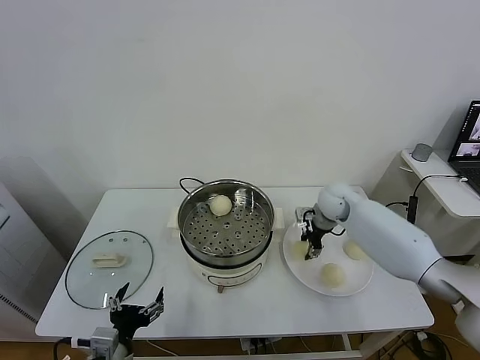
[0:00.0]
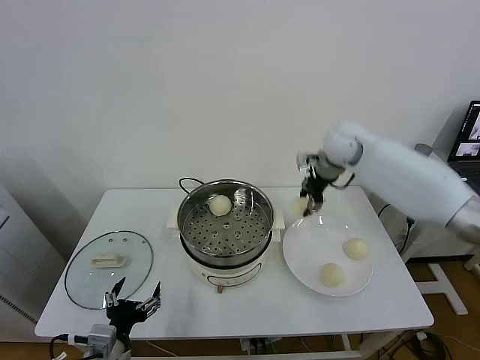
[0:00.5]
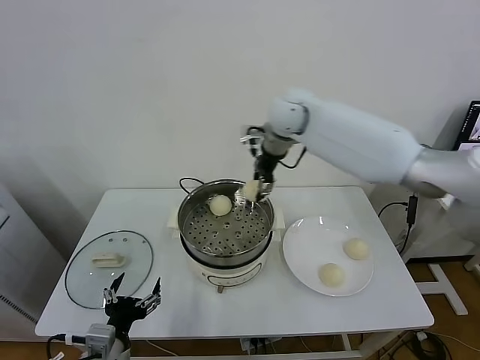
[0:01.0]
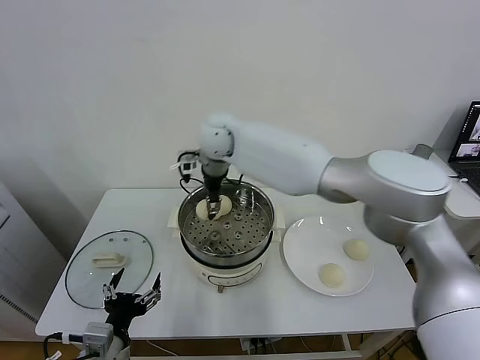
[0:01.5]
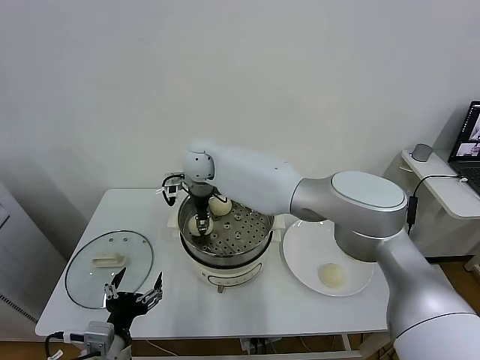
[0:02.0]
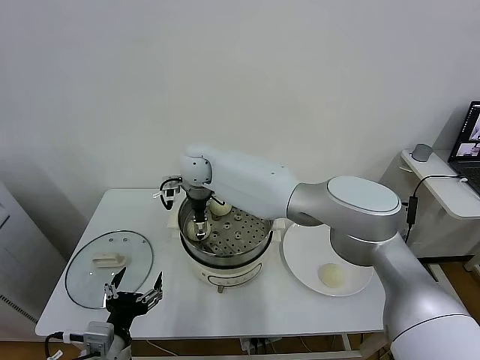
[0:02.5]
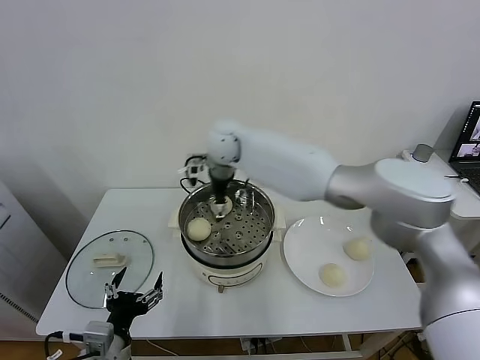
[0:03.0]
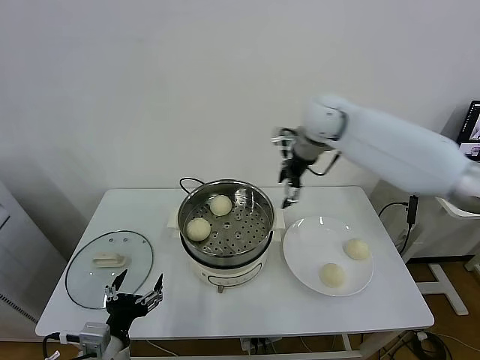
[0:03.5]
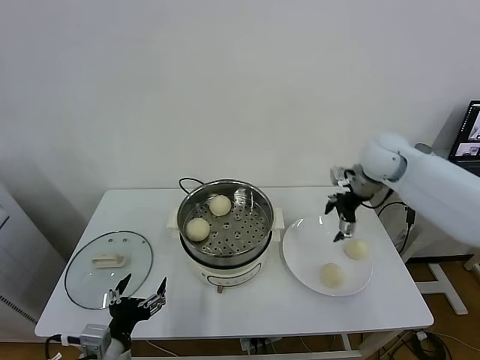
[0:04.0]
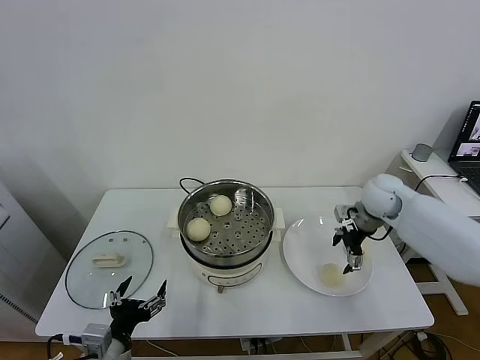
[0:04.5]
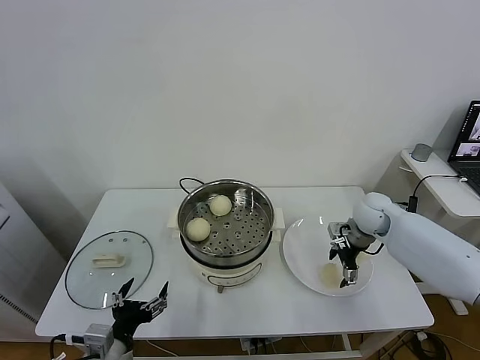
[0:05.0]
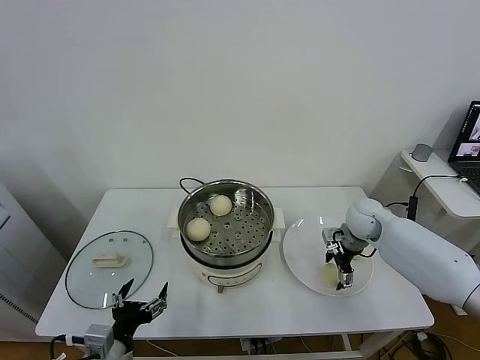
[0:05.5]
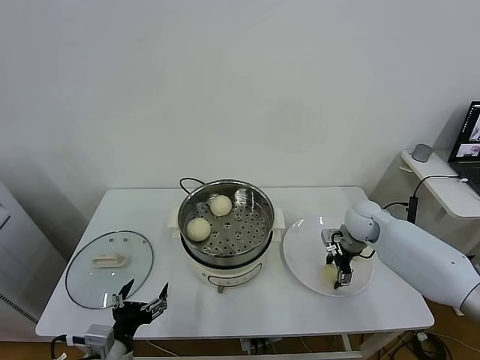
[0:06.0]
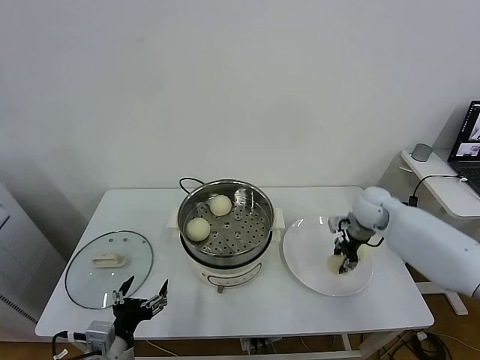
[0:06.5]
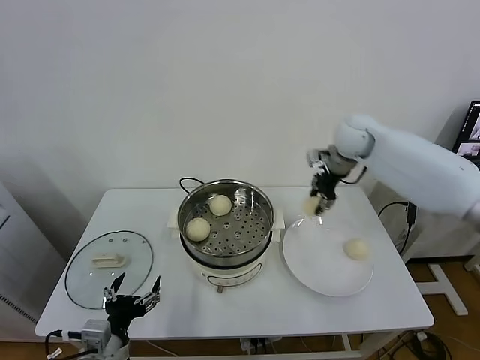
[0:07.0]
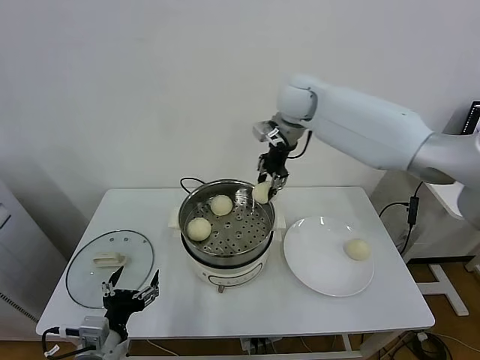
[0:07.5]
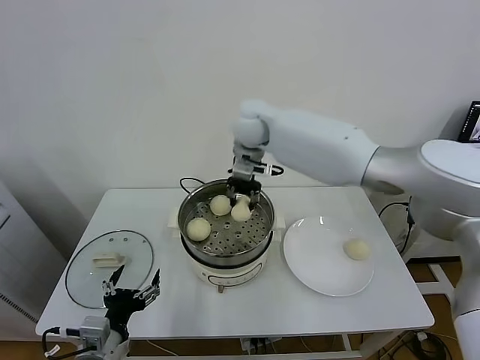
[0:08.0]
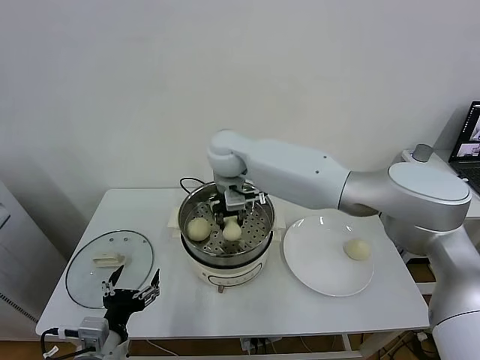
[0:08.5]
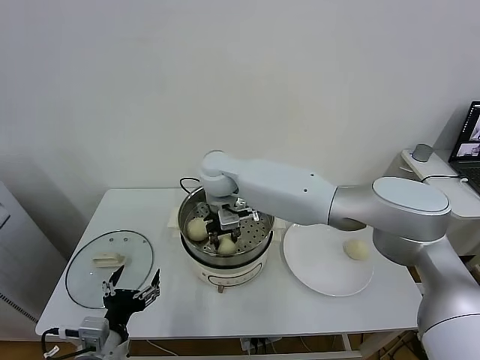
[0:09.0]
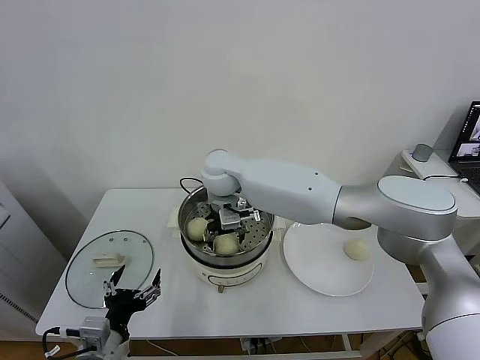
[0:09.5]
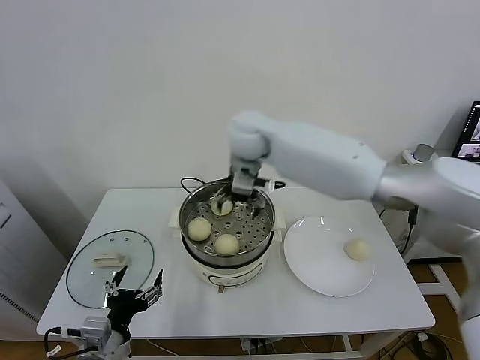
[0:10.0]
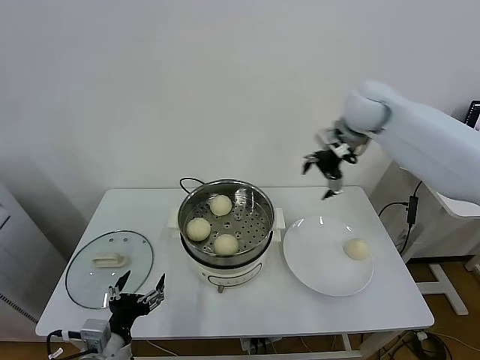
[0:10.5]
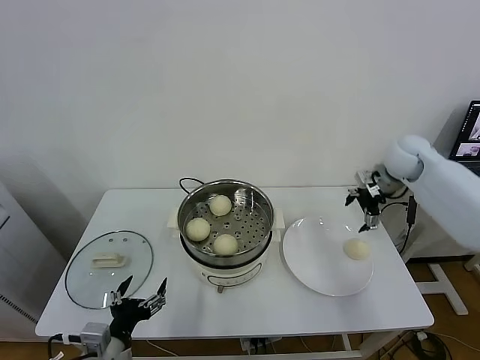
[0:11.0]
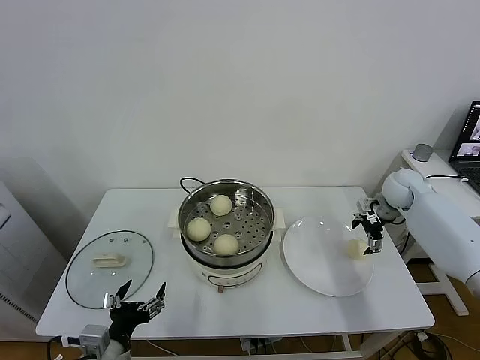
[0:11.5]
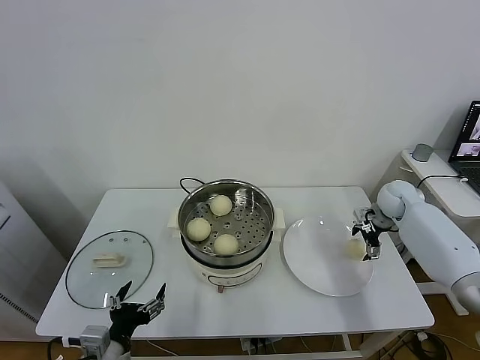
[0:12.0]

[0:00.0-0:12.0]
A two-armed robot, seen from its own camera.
Task of the whole recording: take steamed baozi put them in steamer.
Step, 0.0 to 2.5 s: Place the baozi on the steamer with right gripper.
Step, 3.0 to 6.0 s: Grasp the baozi in the plate with right gripper.
Step, 6.5 to 9.5 s: Place the baozi on the steamer with right gripper.
0.0 to 2.0 s: The right gripper is displaced to the left by approximately 35 cm.
2.0 to 4.0 s: The right gripper shifts roughly 40 cm to the right, and opens its fingers.
4.0 to 6.0 s: The right gripper goes roughly 15 cm downward, and closes its fingers.
6.0 to 8.0 s: The right gripper heads to the left and upward, covering about 40 cm, and closes up.
8.0 to 10.0 s: The right gripper travels downward and back again, roughly 10 cm each way, and opens its fingers.
10.0 to 12.0 s: The right gripper goes some 40 cm to the right and downward.

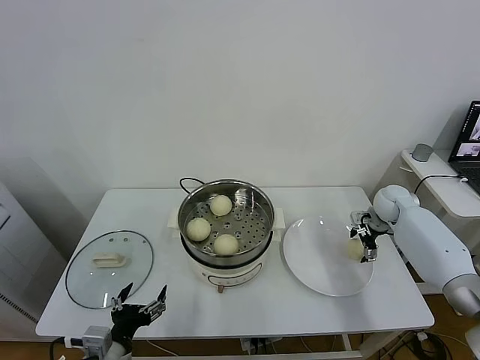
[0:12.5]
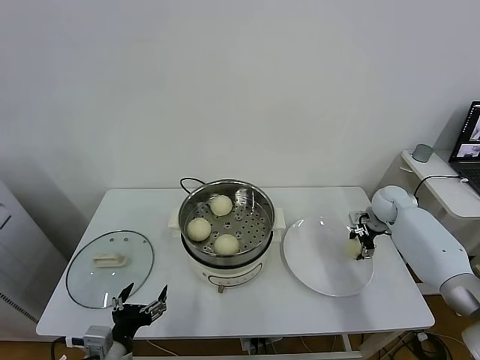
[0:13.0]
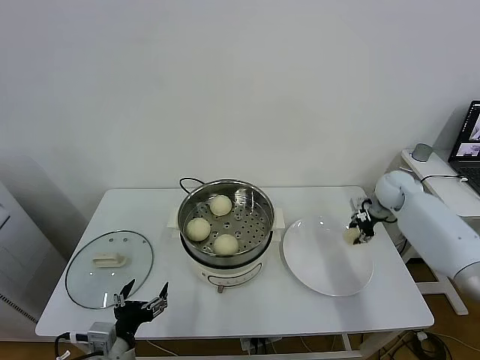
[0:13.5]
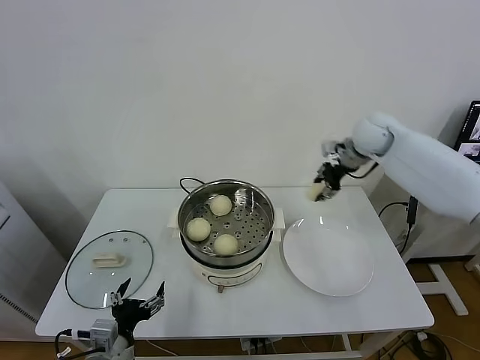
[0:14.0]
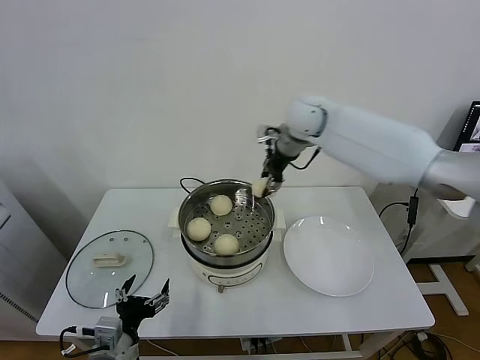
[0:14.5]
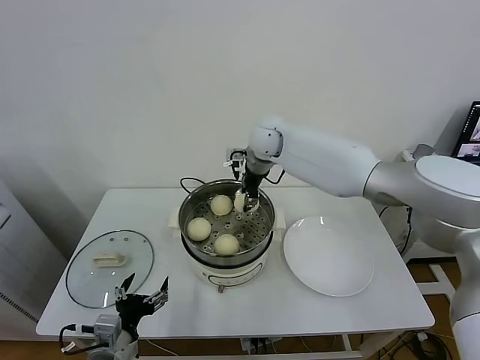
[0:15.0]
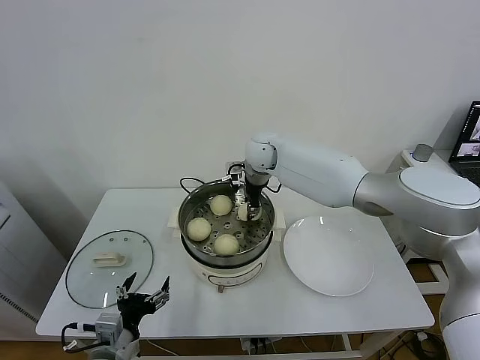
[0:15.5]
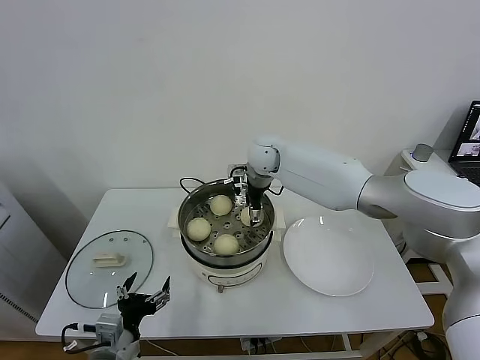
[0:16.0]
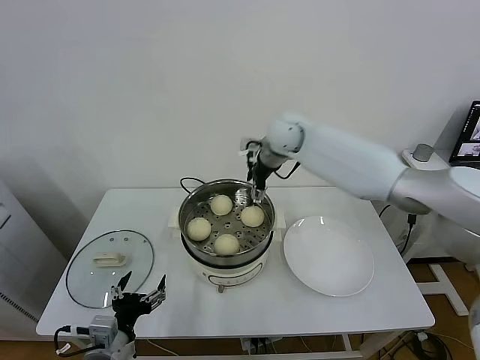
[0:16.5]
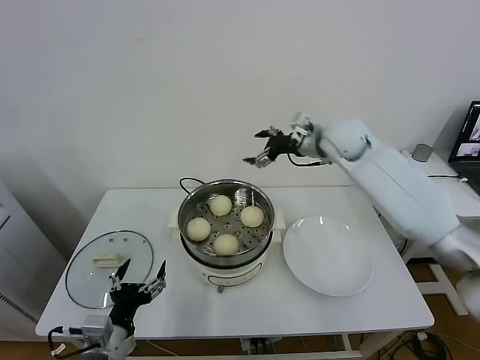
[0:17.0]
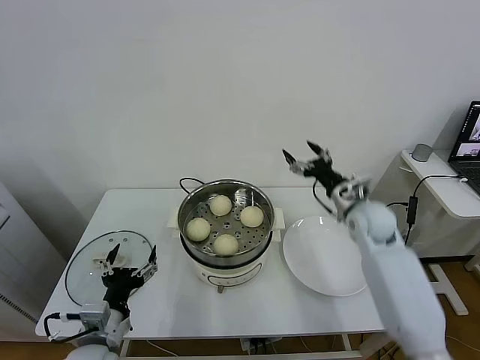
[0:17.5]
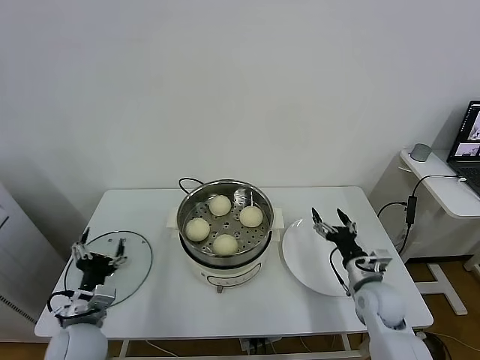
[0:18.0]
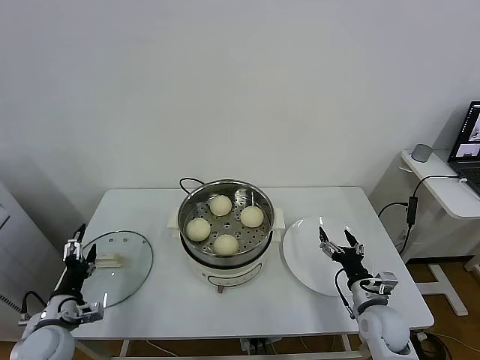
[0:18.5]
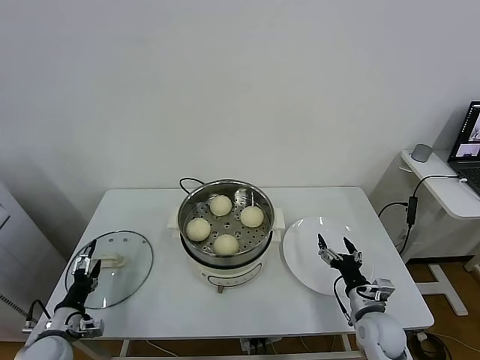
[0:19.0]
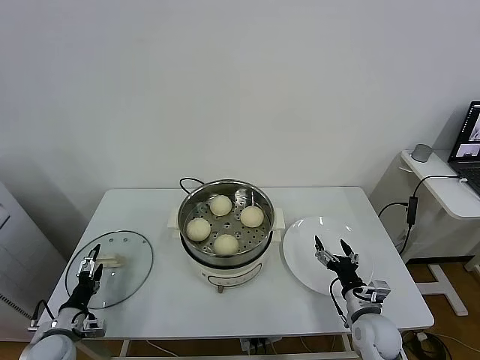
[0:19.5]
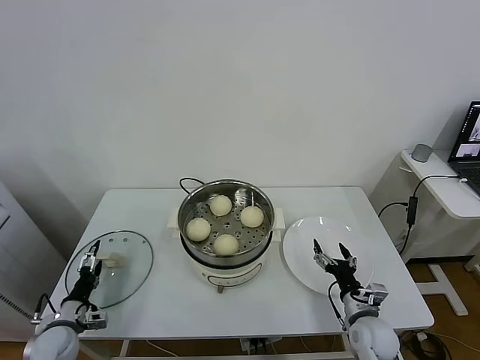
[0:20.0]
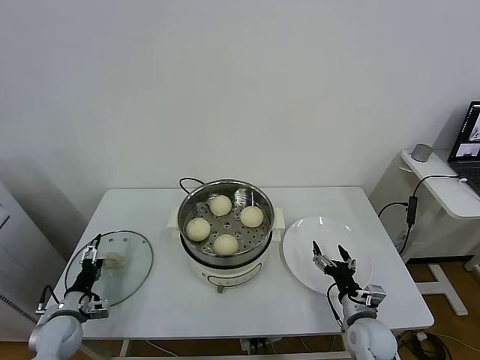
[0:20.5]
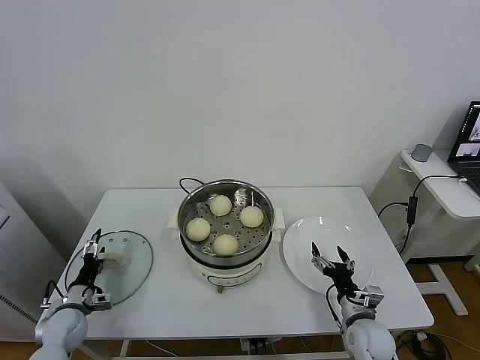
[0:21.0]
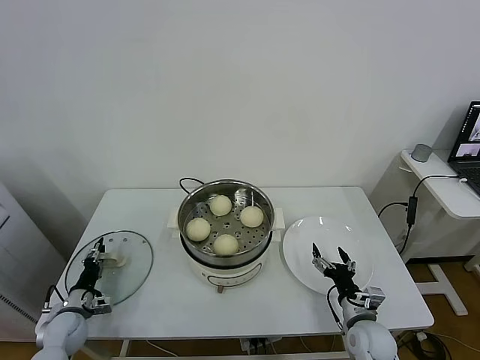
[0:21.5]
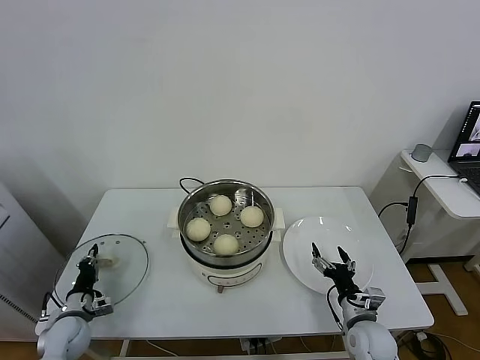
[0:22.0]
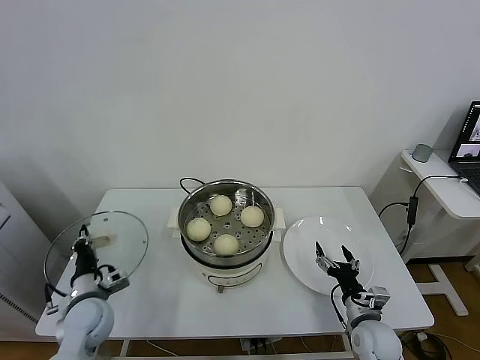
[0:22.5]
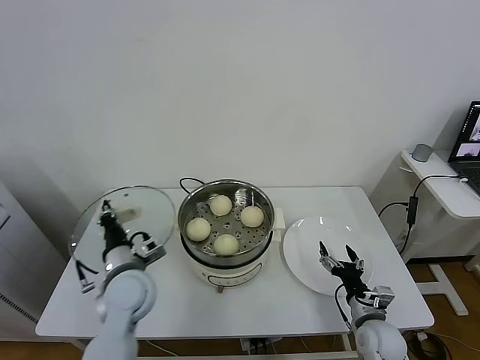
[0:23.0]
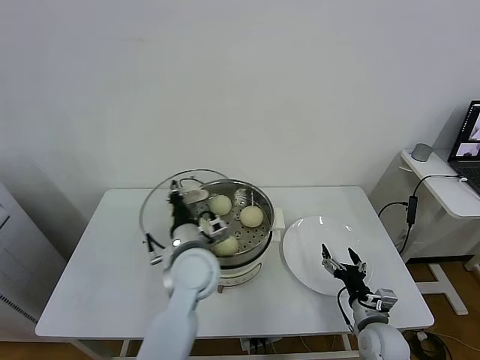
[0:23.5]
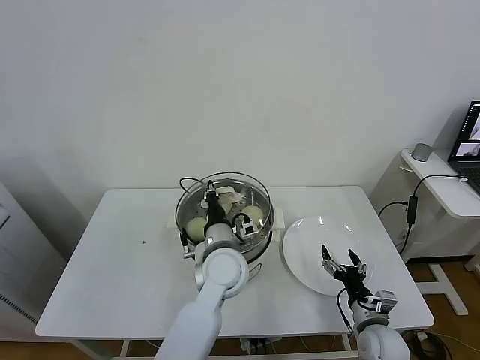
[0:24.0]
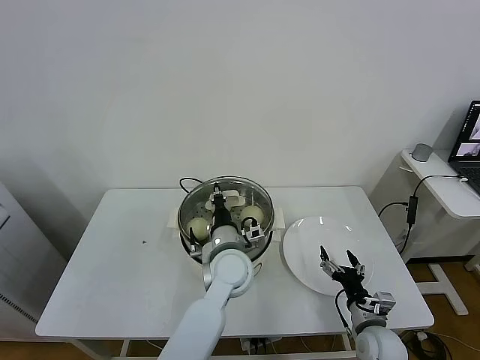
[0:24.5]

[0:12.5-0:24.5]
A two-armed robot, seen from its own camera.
Task of the whole recording: take steamed baozi put them in steamer.
Step, 13.5 to 16.0 s: Place the baozi on the steamer with right gripper.
Step, 16.5 to 21.5 s: Grasp the pot lid with left gripper.
12.5 to 14.5 s: The right gripper moves to the left and upward, about 35 cm, and closes.
14.5 to 16.5 s: The right gripper opens its fingers.
16.5 to 18.5 s: The left gripper moves to the left and forward, about 15 cm. Meanwhile the right gripper moves downward, backward and to the right, roughly 50 cm.
18.5 to 20.5 s: The left gripper moves downward, some 10 cm.
20.5 to 22.5 s: The left gripper is displaced to the right and upward by about 15 cm, and closes its fingers.
22.5 to 24.5 s: The left gripper heads to the right, covering about 30 cm.

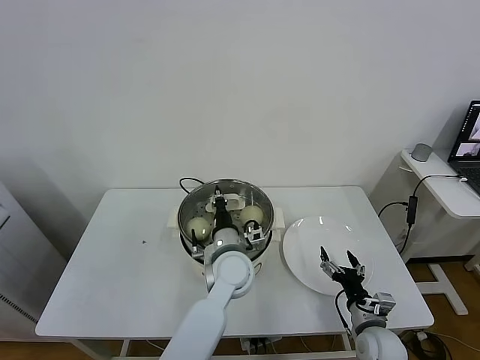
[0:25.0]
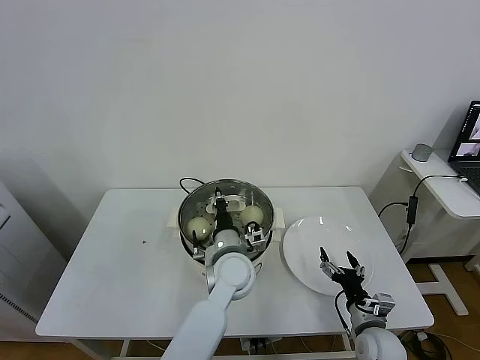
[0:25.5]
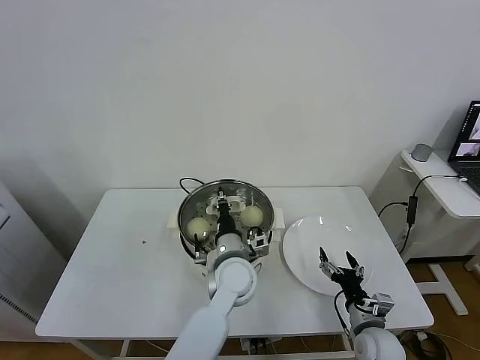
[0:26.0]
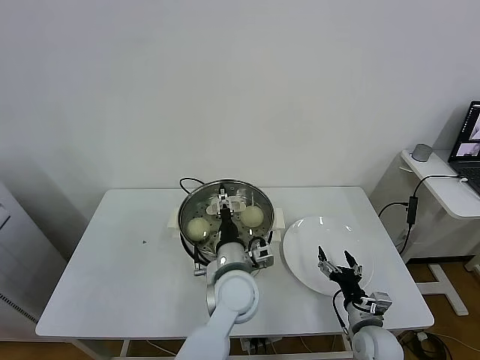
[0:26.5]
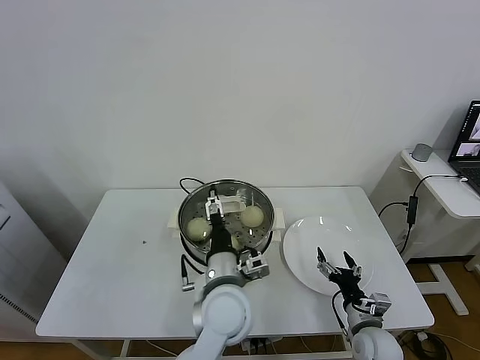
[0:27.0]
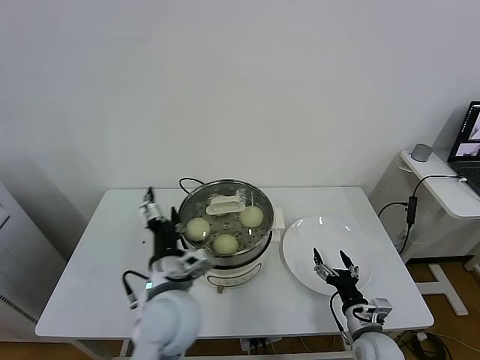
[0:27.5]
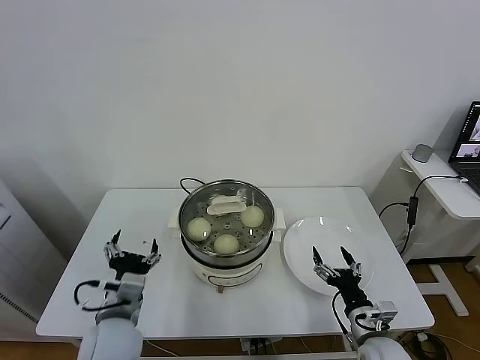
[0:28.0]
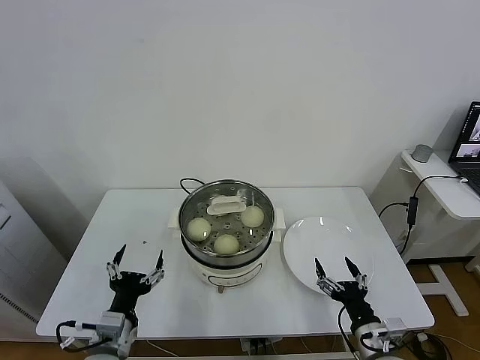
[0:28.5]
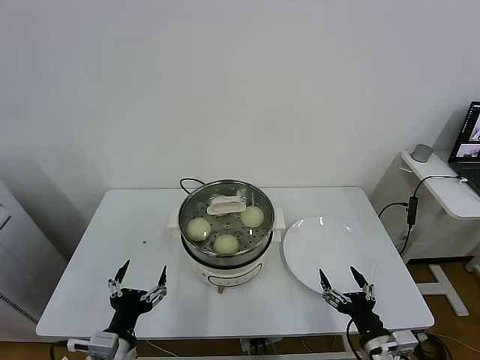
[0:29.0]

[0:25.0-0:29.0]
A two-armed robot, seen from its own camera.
Task of the whole recording: take steamed baozi put them in steamer.
25.0 to 27.0 s: The left gripper moves backward, roughly 10 cm, and opens up.
27.0 to 29.0 s: The right gripper travels backward and upward by about 10 cm. The left gripper moves to the left and backward, some 25 cm.
